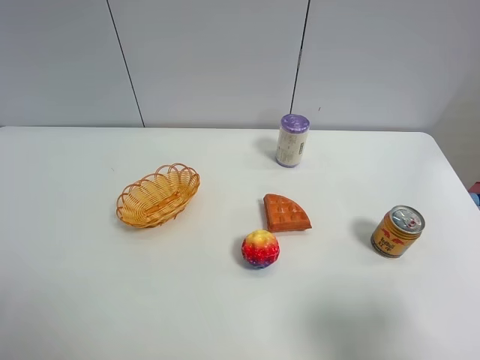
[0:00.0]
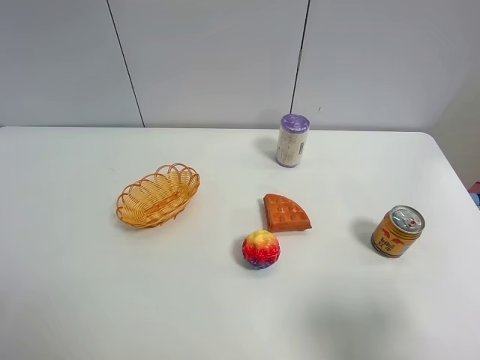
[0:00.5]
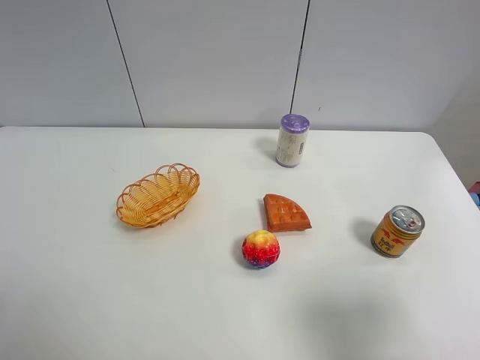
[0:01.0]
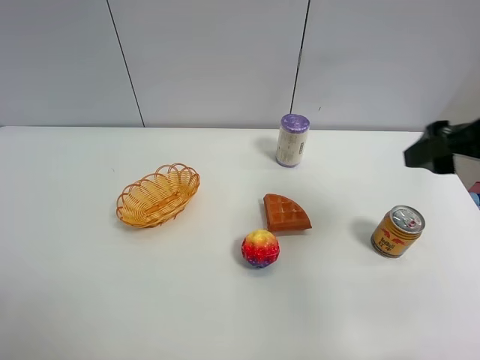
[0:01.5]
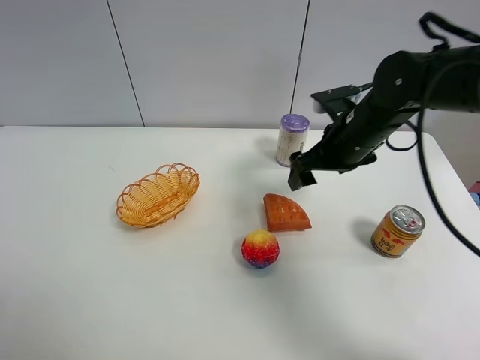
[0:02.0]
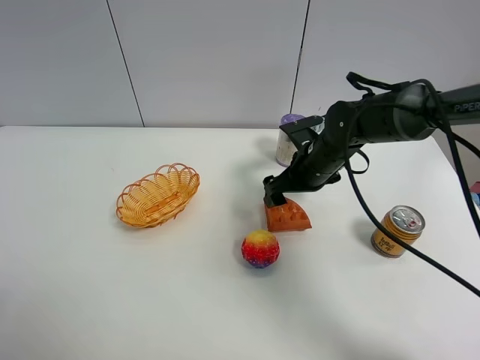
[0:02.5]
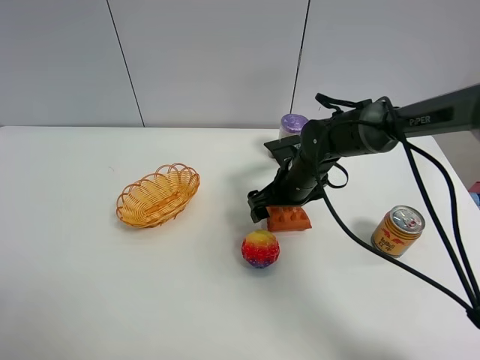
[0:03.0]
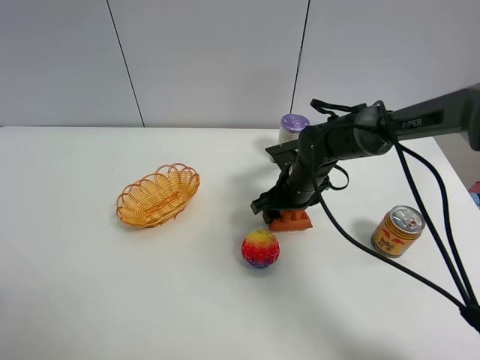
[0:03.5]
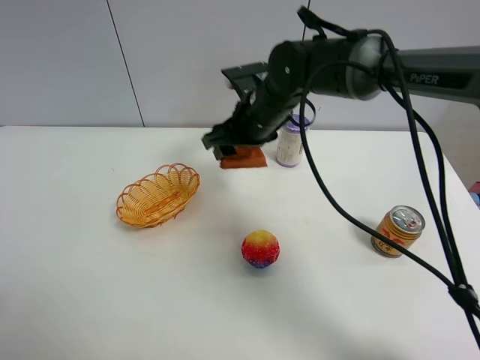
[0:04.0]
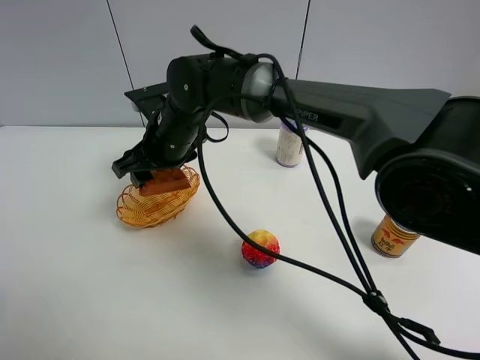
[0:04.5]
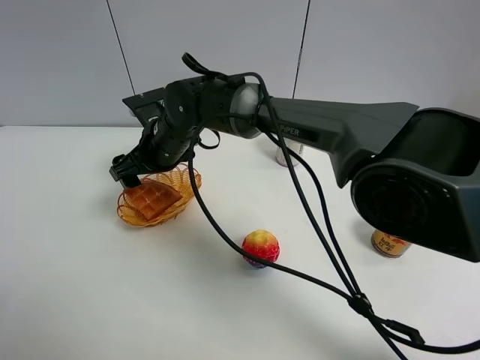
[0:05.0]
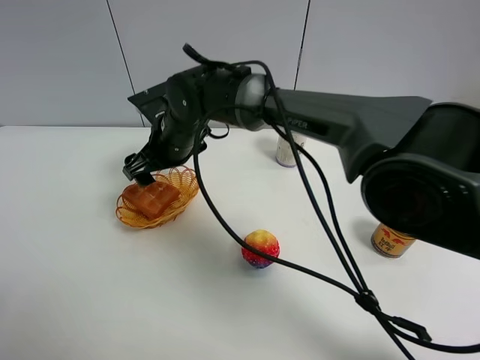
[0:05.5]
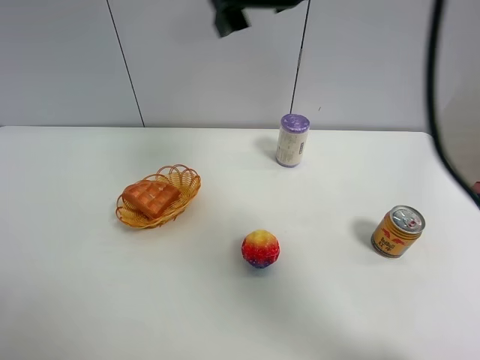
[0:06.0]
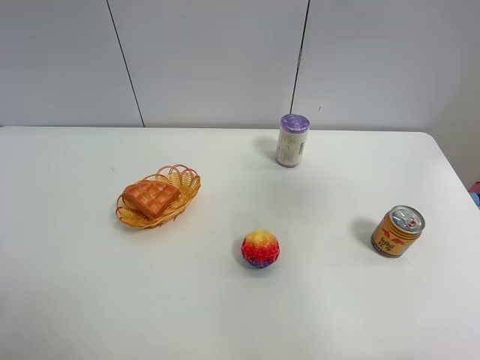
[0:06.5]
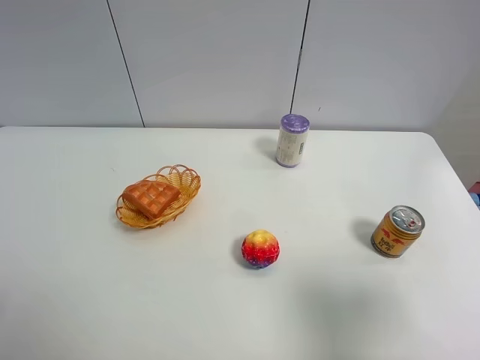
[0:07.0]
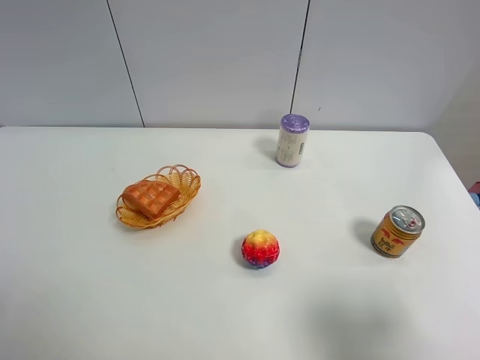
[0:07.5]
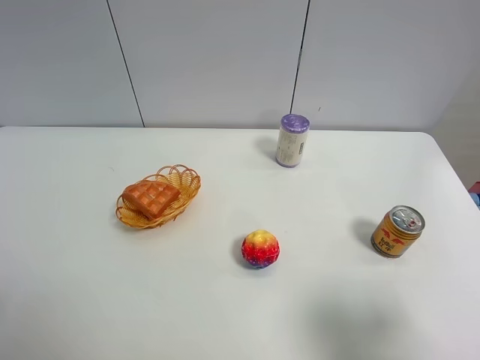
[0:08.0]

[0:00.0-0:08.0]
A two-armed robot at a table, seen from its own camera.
Task of the whole recording: Put the bakery in the basket.
Step, 0:00.0 to 0:03.0: Grasp the bread with right gripper.
Step, 0:03.5 to 0:05.5: Place the bread in the basket with right gripper.
0:00.0 to 0:02.0: The right gripper goes roughly 35 cm forward and to the left.
0:02.0 to 0:04.0: The right gripper is displaced to the left by some 15 cm, and closes its fingers.
0:04.0 to 0:06.0: The right gripper heads upward, covering some 20 cm, and opens.
0:06.0 to 0:08.0: The right gripper shifts roughly 40 cm backward, to the right and downward.
